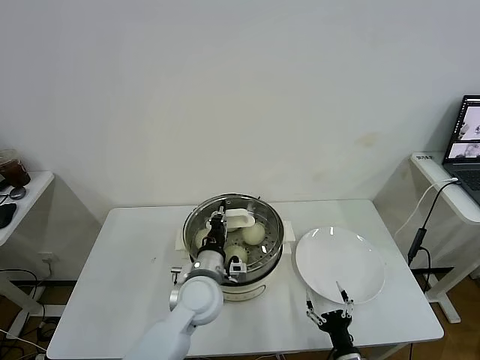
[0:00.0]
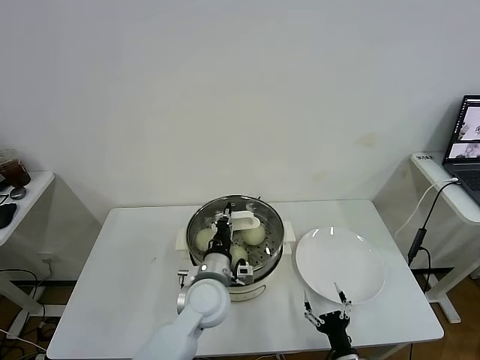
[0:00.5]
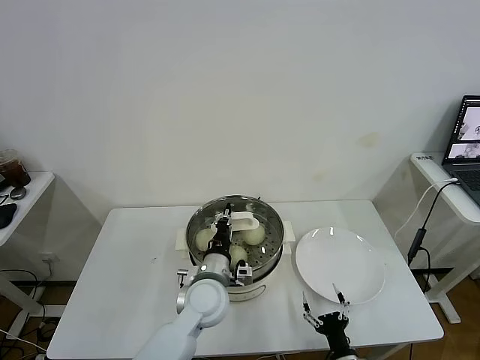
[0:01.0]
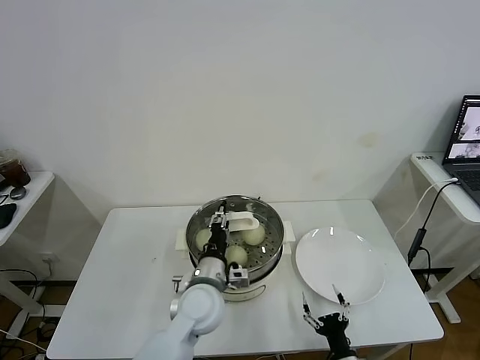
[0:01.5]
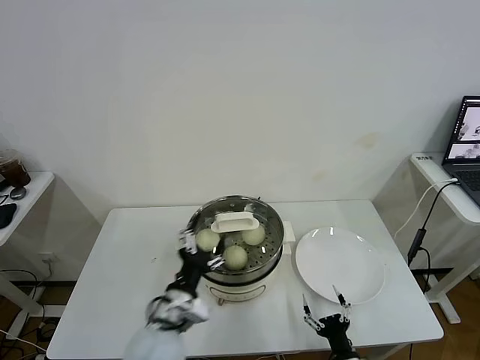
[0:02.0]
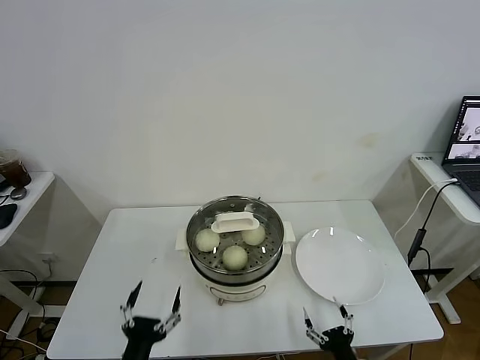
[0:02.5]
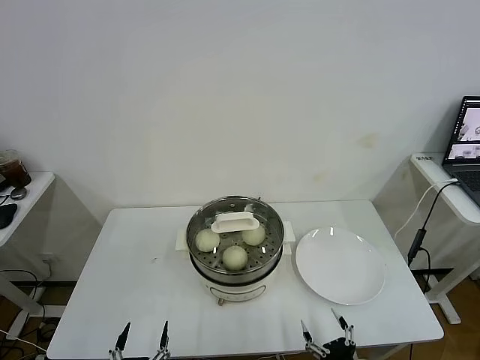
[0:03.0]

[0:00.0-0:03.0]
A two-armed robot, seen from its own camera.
Task of the whole recording: take steamed baozi put them in steamer.
0:00.0 to 0:01.5: The left gripper opens its fingers.
0:01.5 to 0:03.0: The left gripper travels backward and to the left by about 30 cm, and opens up; the right gripper is displaced upward and backward by roughly 10 cm.
